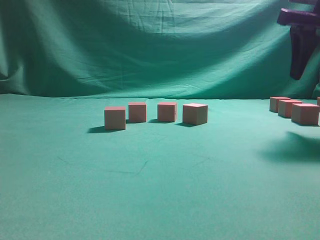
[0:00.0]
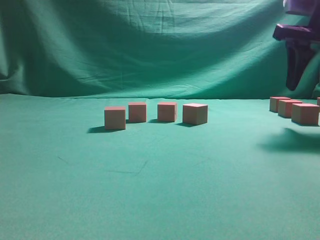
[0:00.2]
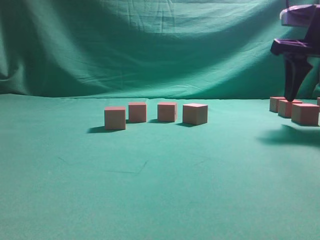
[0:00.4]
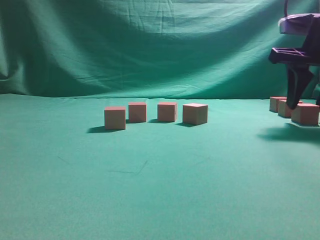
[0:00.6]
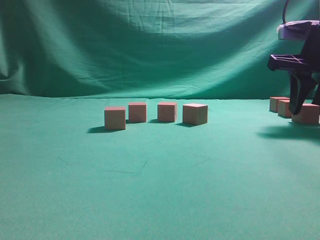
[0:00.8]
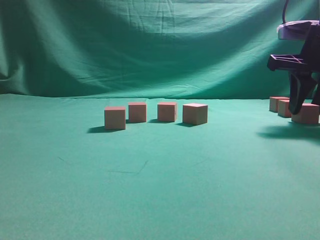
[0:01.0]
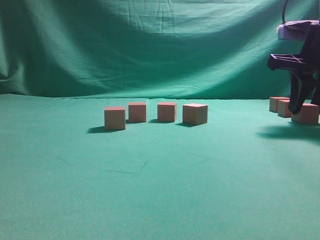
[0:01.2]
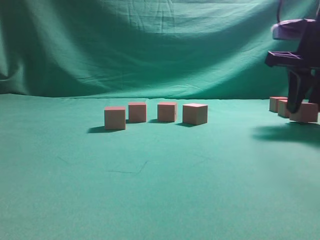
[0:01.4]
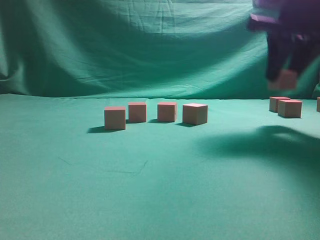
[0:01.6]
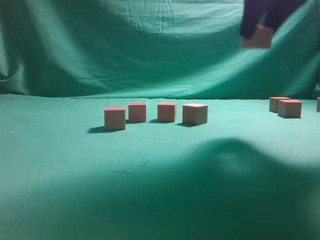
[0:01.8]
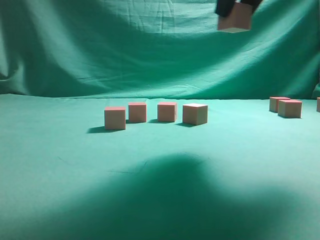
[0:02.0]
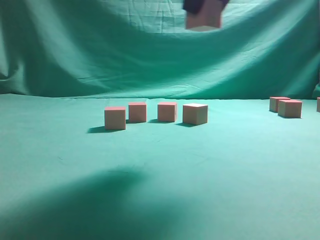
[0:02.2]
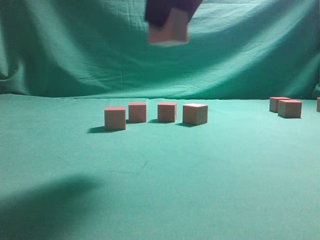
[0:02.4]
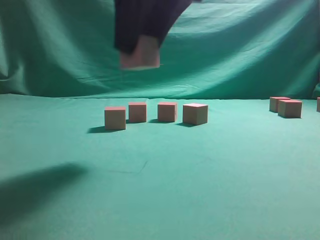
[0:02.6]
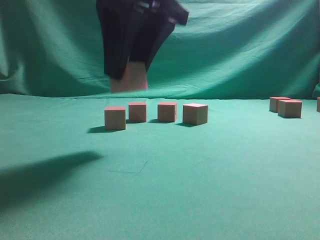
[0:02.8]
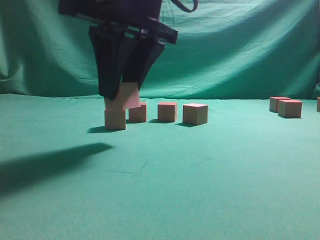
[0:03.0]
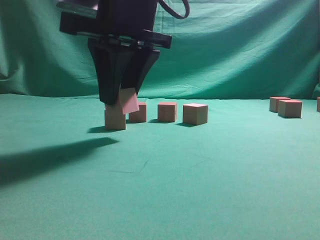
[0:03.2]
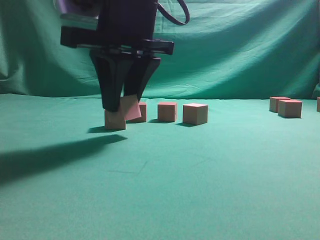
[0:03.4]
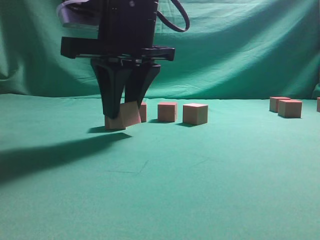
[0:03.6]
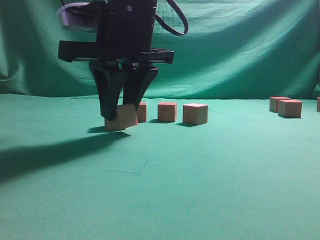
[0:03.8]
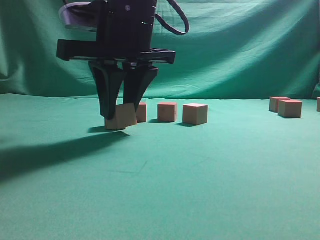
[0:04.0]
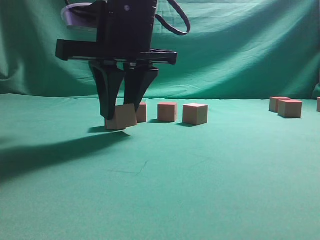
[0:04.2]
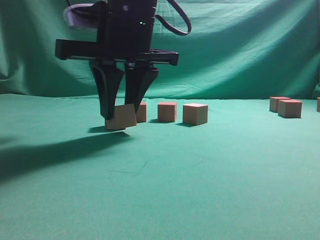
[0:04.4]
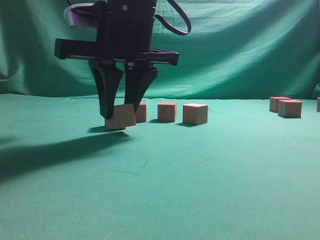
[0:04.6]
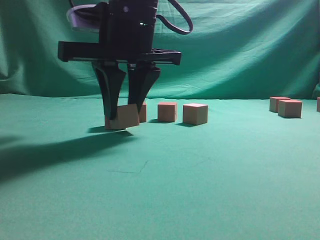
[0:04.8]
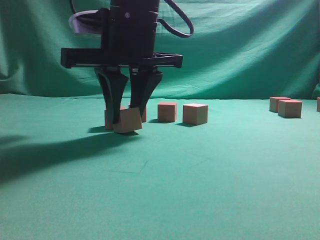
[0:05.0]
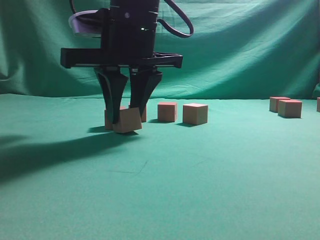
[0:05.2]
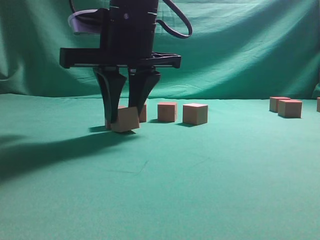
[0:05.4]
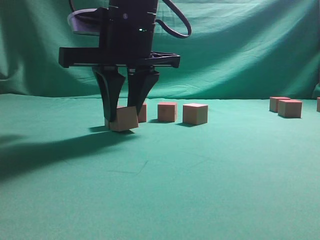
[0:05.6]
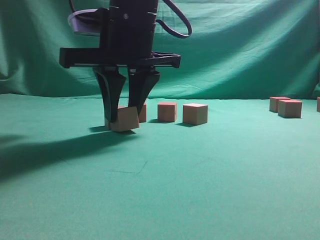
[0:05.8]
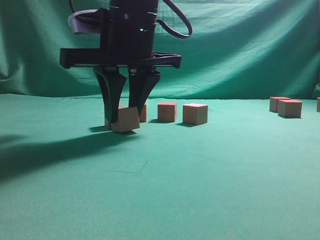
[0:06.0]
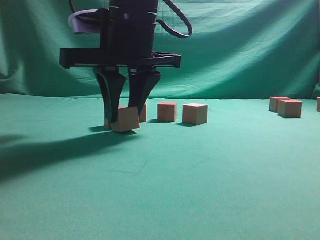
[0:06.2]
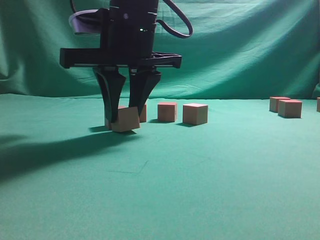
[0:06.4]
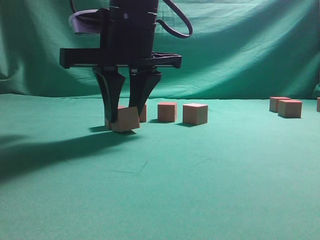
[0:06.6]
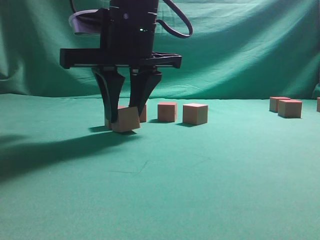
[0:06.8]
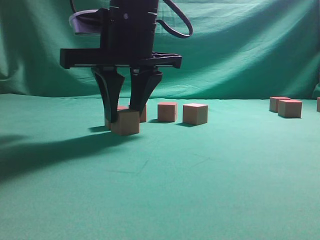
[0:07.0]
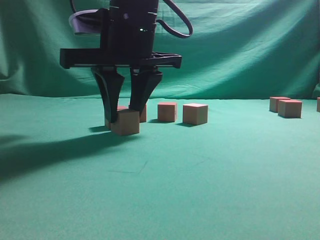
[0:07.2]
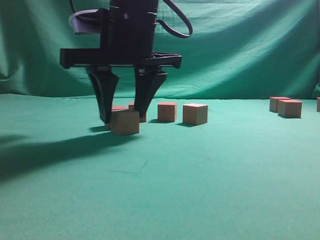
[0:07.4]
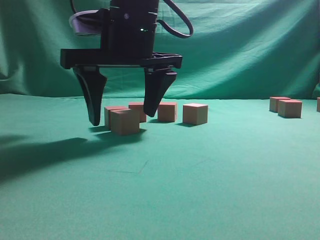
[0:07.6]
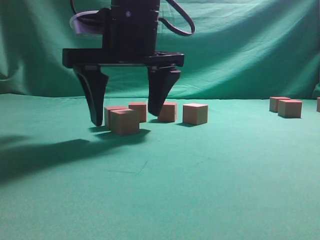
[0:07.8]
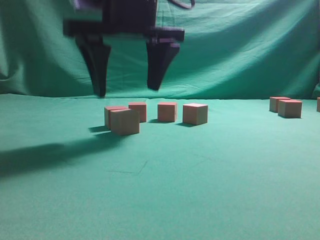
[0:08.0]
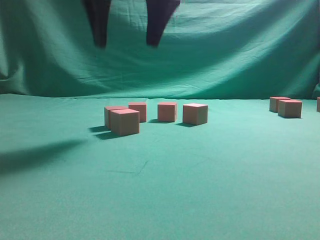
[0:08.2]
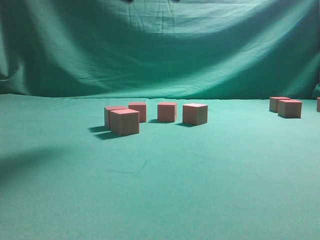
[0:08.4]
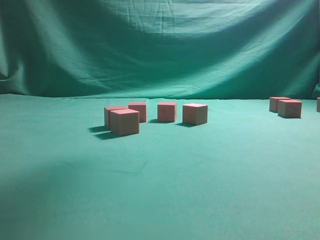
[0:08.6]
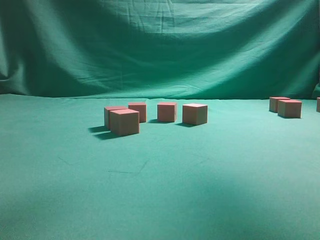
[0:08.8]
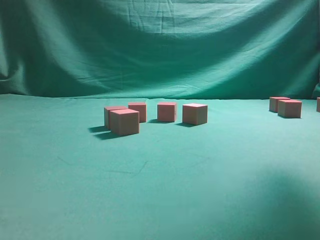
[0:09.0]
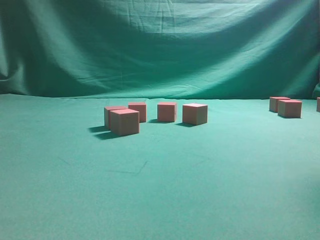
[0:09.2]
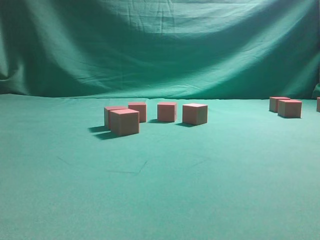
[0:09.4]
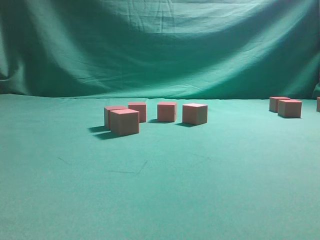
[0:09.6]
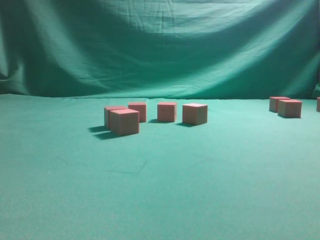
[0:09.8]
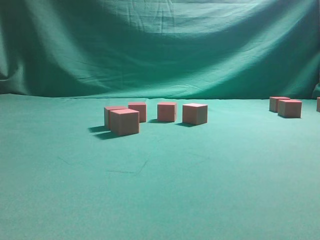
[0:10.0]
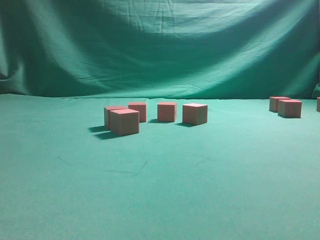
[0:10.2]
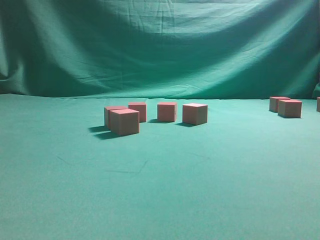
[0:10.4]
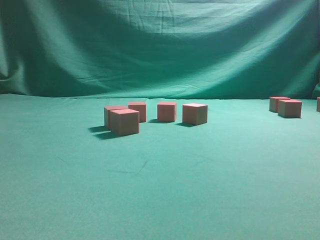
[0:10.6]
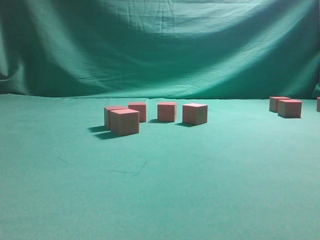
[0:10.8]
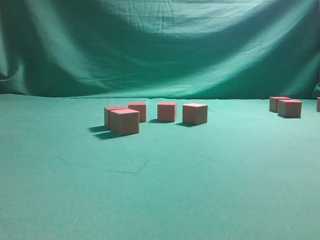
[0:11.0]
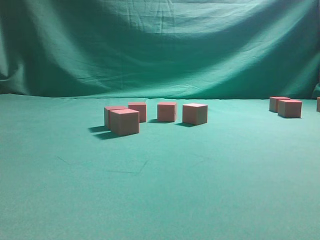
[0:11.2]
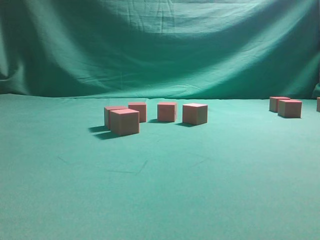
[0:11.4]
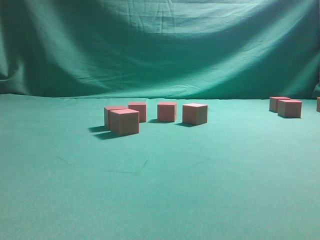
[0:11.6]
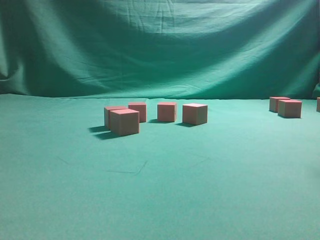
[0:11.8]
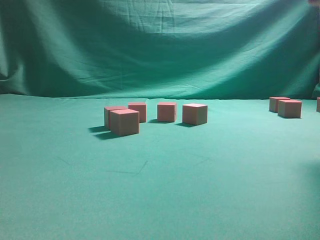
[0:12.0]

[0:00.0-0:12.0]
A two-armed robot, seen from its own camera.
Task of the whole recording: pick up the multiple cubes in two columns one by one and place them in another position on the table.
Step, 0:01.6 to 0:08.0: Place the block at the correct position to assemble the letter S.
0:00.0 to 0:01.6: The right gripper shifts by roughly 5 cm, and closes its fingers.
0:01.6 to 0:03.0: The right gripper heads to the left, covering some 20 cm.
0:03.0 to 0:04.4: The grippers move only a little.
0:04.4 to 0:06.0: Neither gripper changes place.
0:06.0 to 0:07.6: The right gripper opens.
0:07.6 to 0:09.0: The right gripper moves to the right and upward, some 30 cm.
0:09.0 to 0:10.4: The right gripper travels downward and to the right by some 25 cm.
0:10.4 to 0:12.0: The right gripper travels upward, to the left and backward by some 20 cm, and closes.

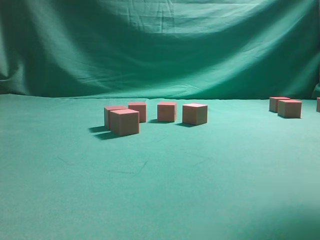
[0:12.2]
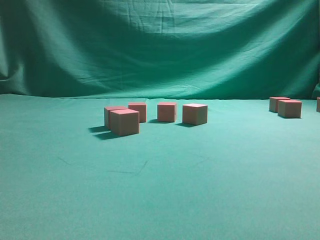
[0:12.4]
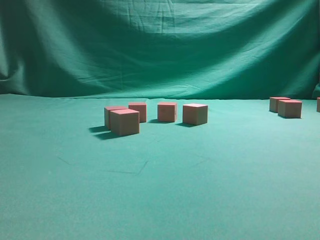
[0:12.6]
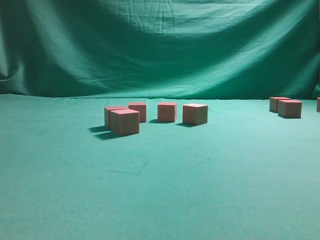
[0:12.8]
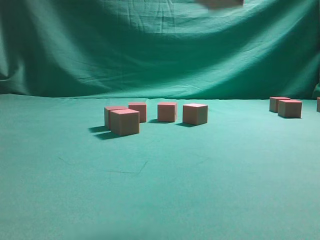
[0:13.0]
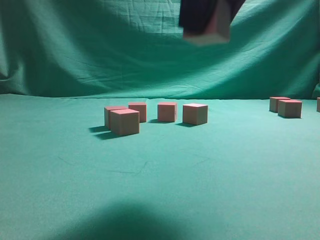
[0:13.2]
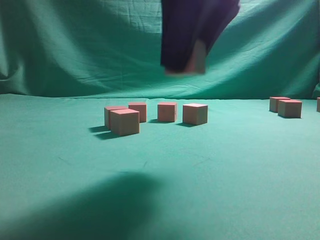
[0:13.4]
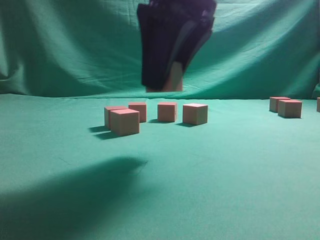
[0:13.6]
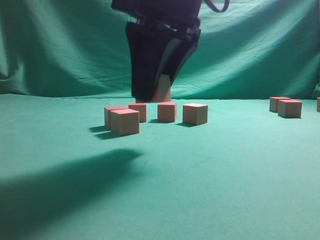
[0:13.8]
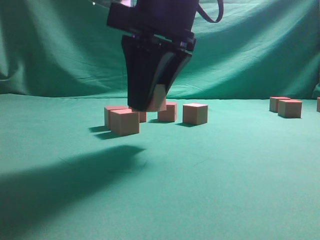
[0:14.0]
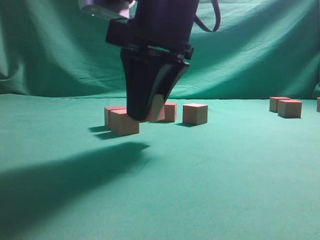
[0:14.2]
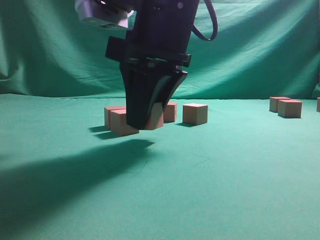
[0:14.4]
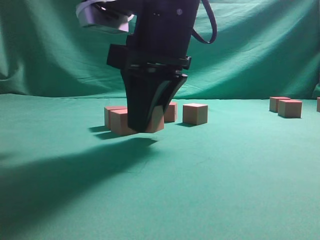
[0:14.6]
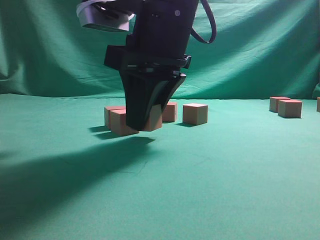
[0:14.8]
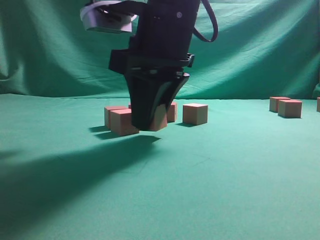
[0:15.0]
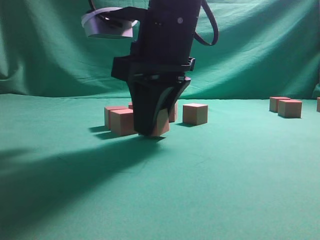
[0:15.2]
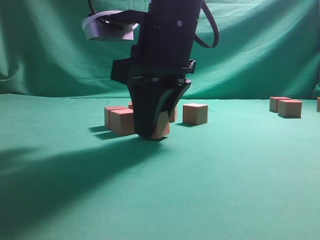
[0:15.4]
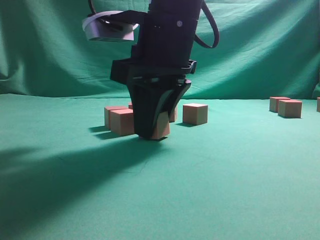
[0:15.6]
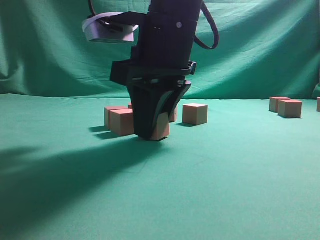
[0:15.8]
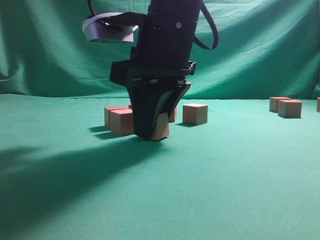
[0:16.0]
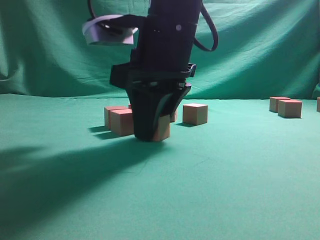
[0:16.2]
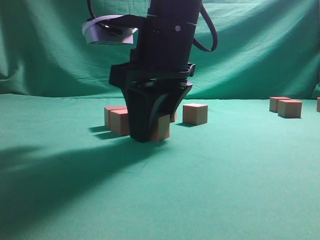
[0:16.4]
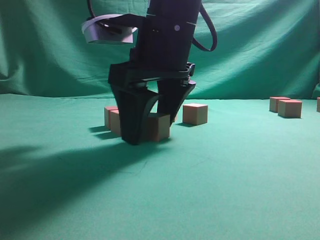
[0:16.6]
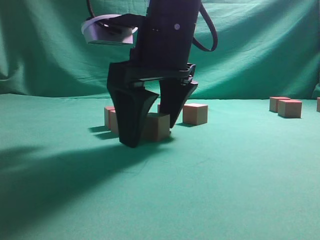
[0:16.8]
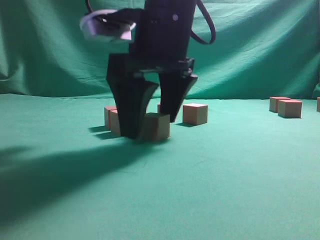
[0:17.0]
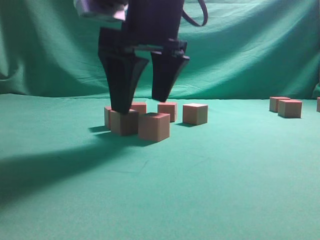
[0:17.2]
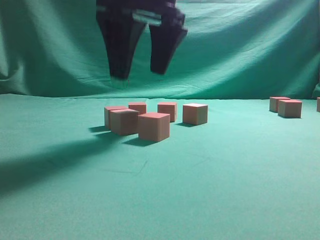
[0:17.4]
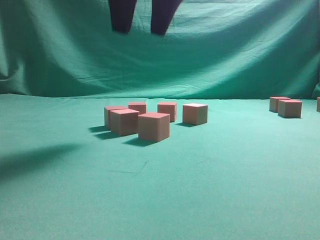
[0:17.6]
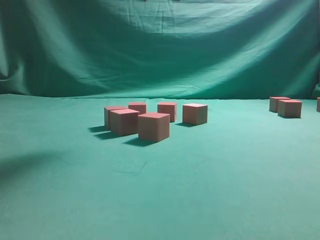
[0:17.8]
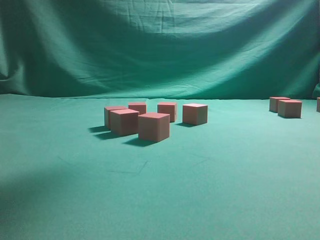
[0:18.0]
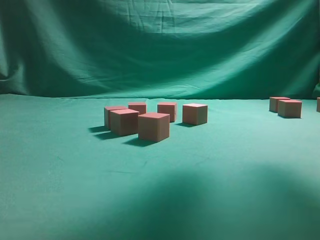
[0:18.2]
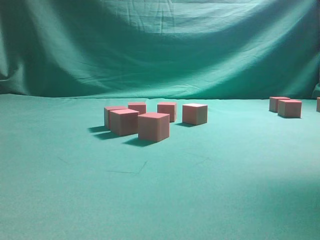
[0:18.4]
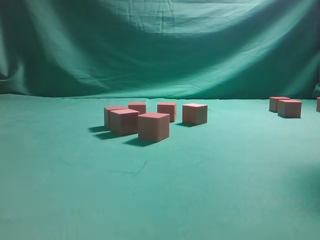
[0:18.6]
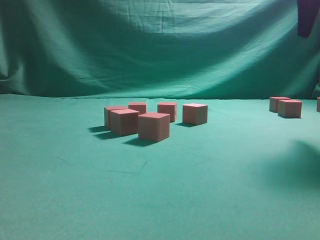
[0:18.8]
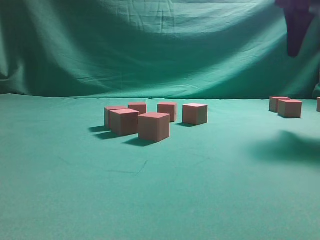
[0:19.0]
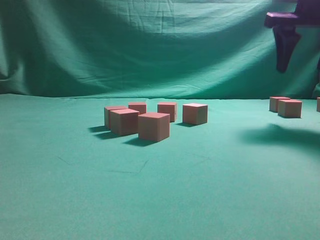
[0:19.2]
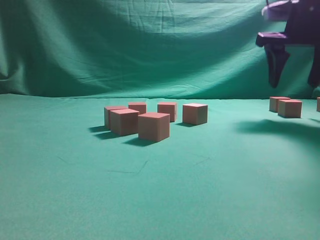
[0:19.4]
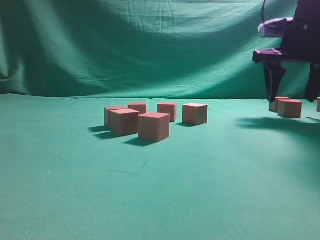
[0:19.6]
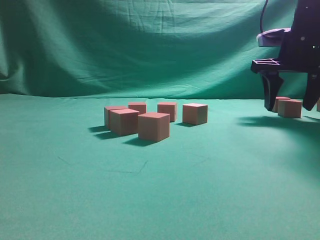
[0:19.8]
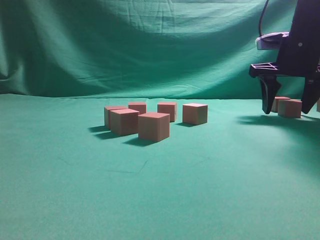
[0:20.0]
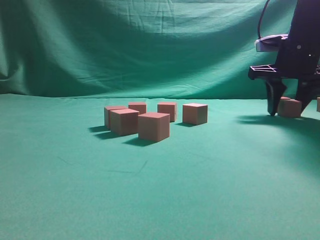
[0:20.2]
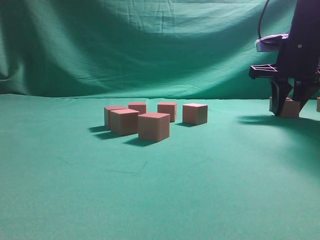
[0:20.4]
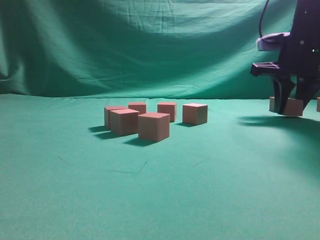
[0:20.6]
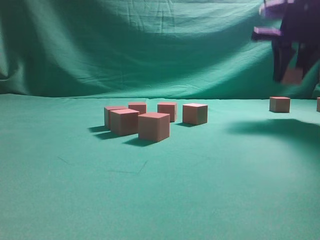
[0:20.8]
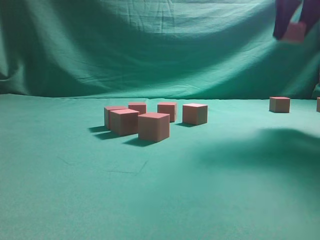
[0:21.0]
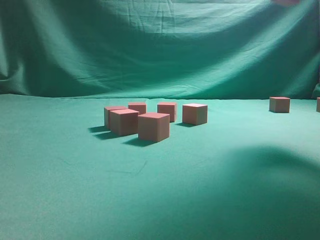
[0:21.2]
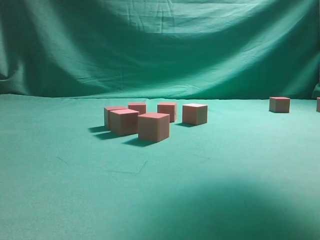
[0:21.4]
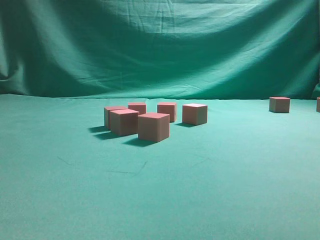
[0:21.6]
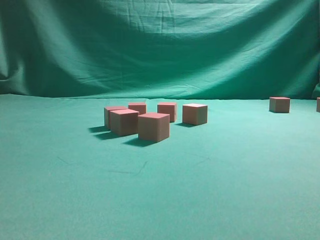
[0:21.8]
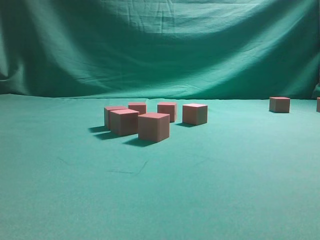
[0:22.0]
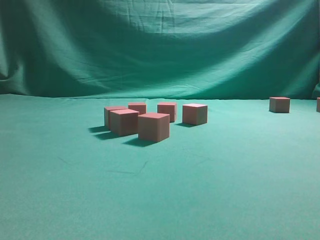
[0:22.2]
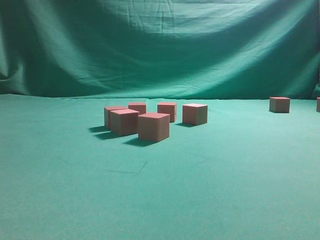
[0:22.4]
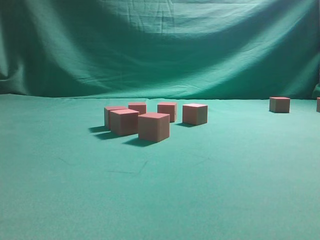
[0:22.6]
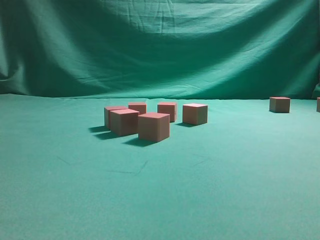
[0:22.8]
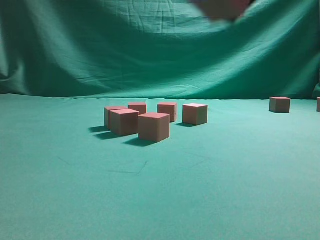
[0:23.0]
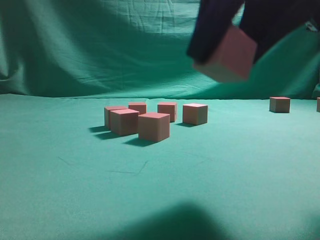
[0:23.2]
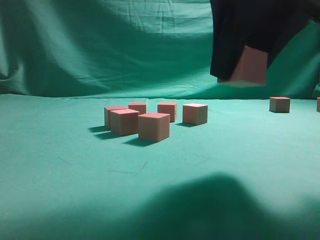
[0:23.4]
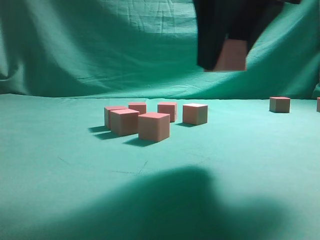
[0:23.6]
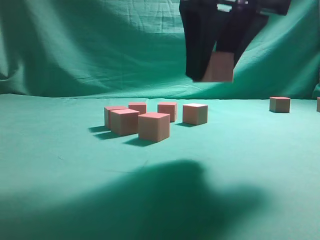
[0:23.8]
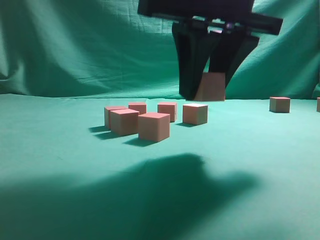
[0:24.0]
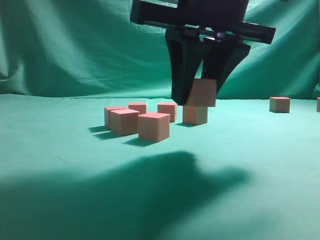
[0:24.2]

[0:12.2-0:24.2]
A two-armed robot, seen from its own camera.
Task of the whole recording: pick up the multiple cubes in two columns one by one and place them in another position on the table.
Step, 0:12.2 to 0:17.4: Place the block at the correct position to assemble the letter S.
Step, 0:17.6 to 0:20.6: Pick up the block on the table.
0:12.2 to 0:13.8: The right gripper moves to the left and downward, roughly 20 cm.
0:13.8 to 0:15.2: The grippers stay close to where they were, moving slightly.
0:15.2 to 0:16.6: The right gripper opens up.
0:16.6 to 0:18.2: The right gripper goes some 25 cm upward and to the right.
0:18.2 to 0:19.8: The right gripper moves downward, forward and to the right, approximately 25 cm.
0:19.8 to 0:21.2: The right gripper goes about 20 cm upward and backward, and closes.
0:21.2 to 0:22.6: The right gripper shifts approximately 20 cm backward.
0:22.6 to 0:24.2: The right gripper is displaced to the left, downward and forward by approximately 20 cm.
